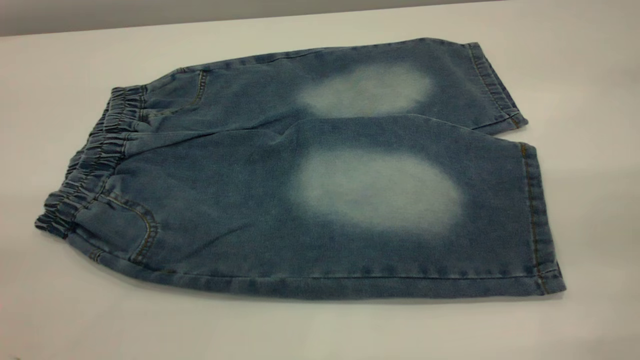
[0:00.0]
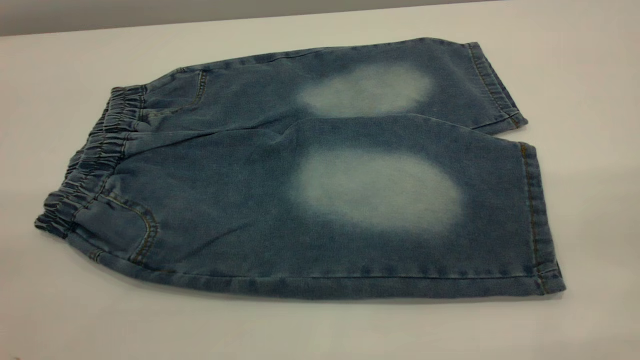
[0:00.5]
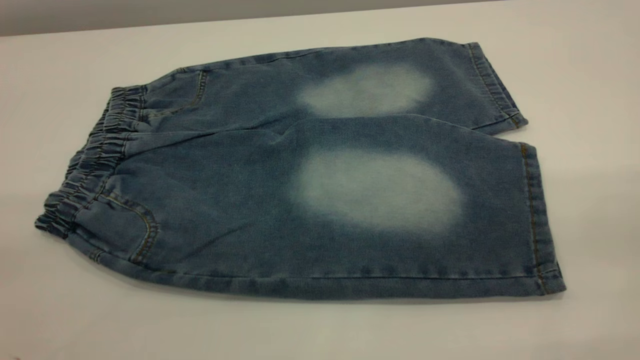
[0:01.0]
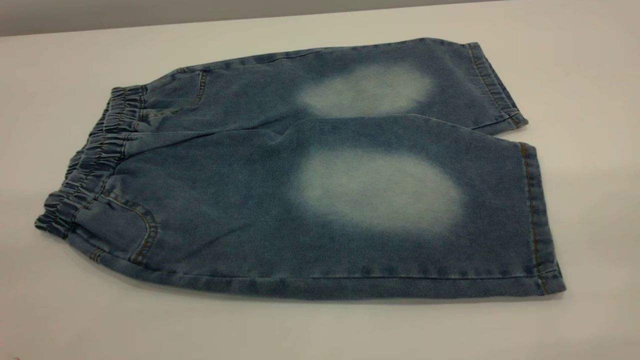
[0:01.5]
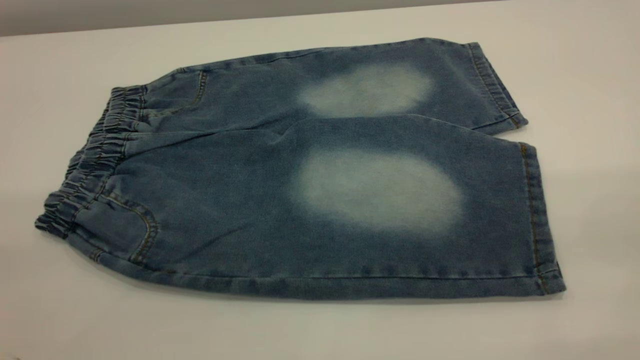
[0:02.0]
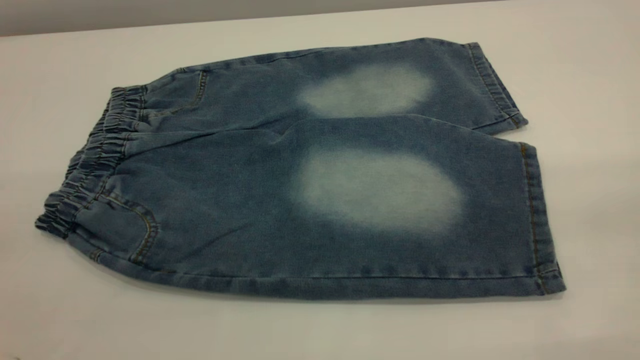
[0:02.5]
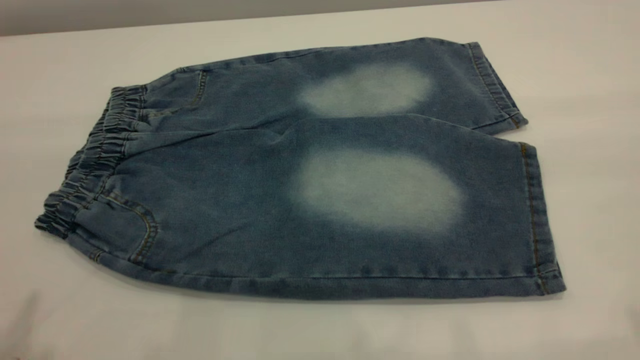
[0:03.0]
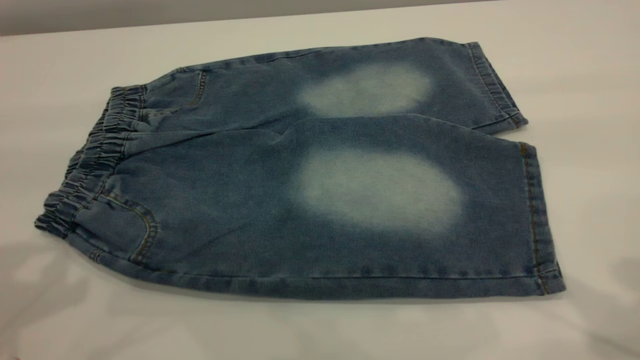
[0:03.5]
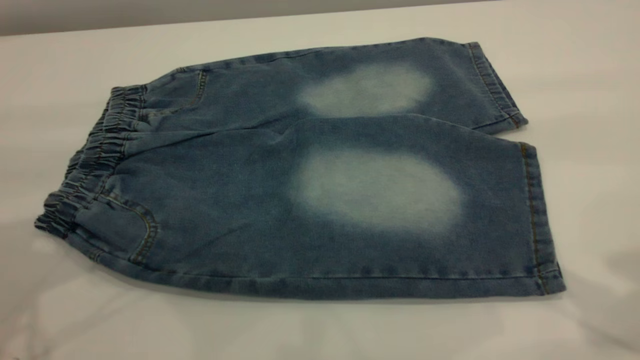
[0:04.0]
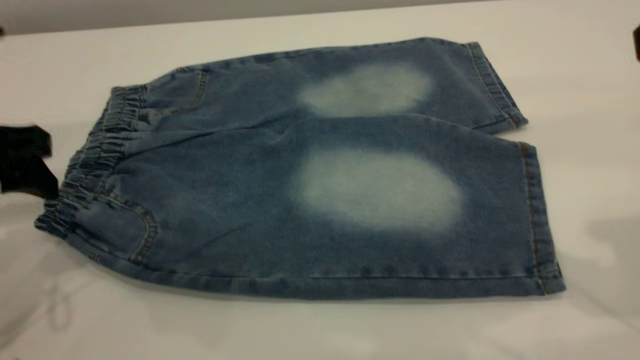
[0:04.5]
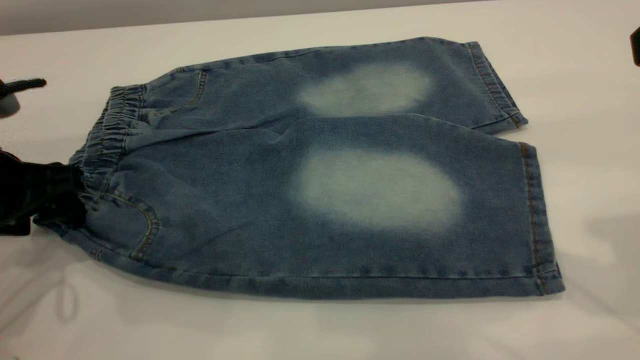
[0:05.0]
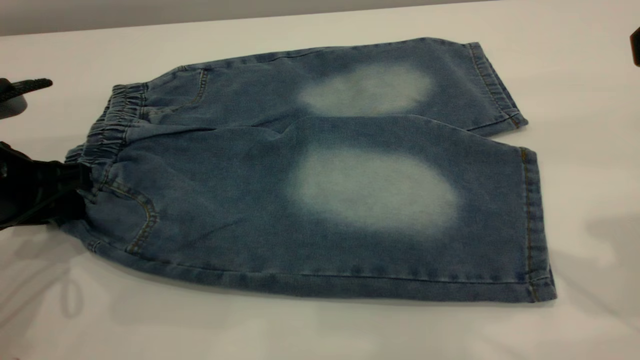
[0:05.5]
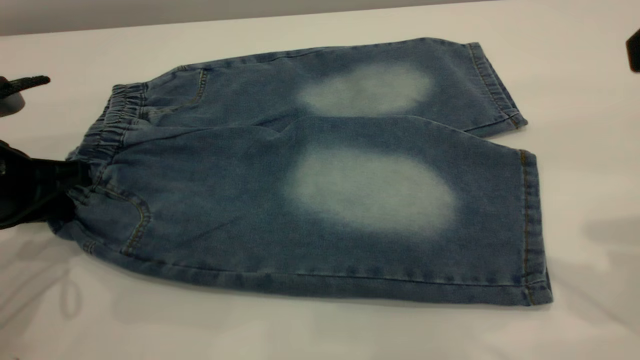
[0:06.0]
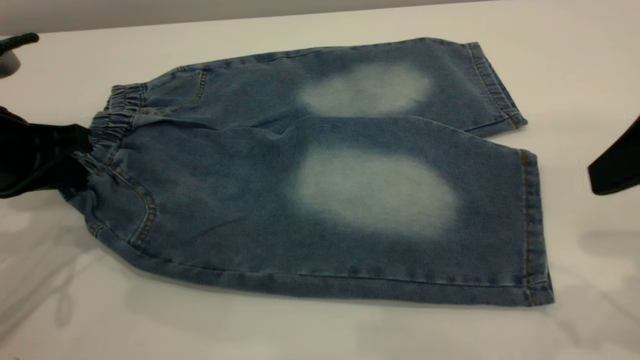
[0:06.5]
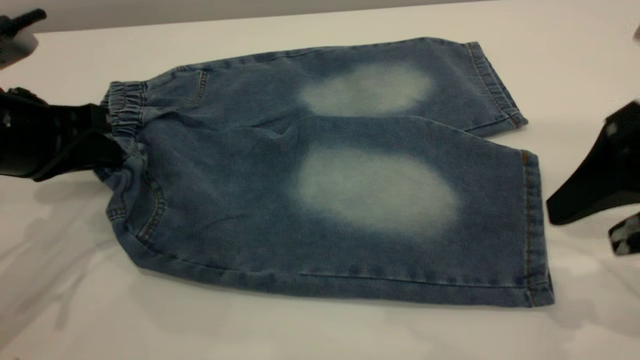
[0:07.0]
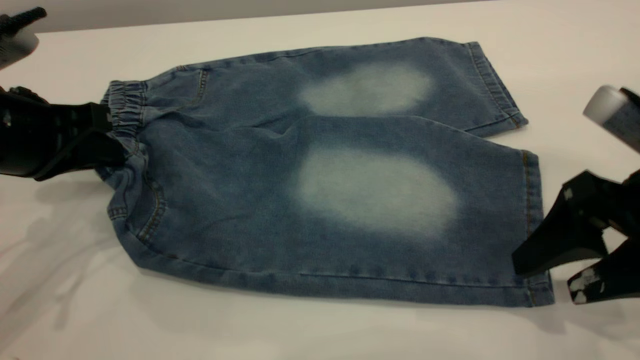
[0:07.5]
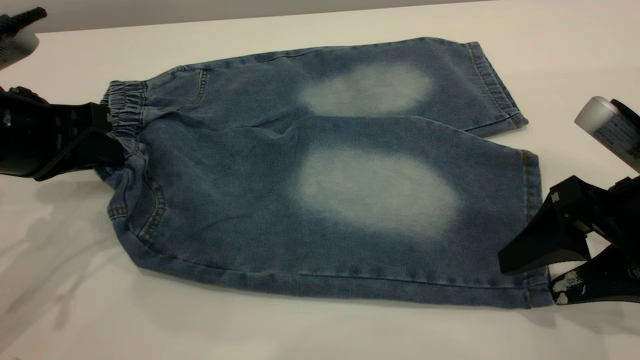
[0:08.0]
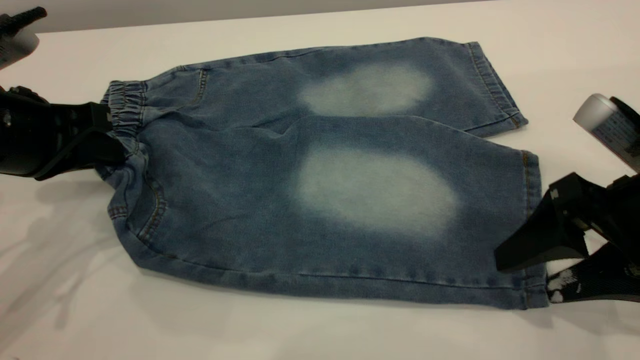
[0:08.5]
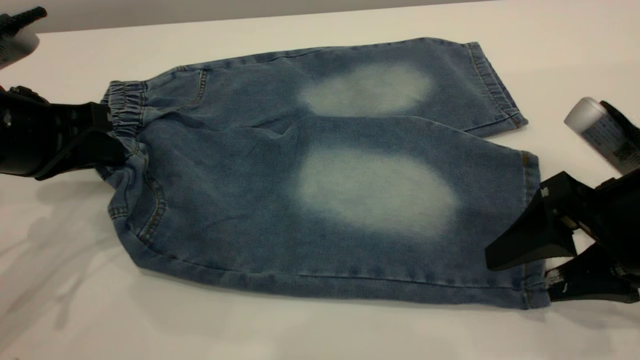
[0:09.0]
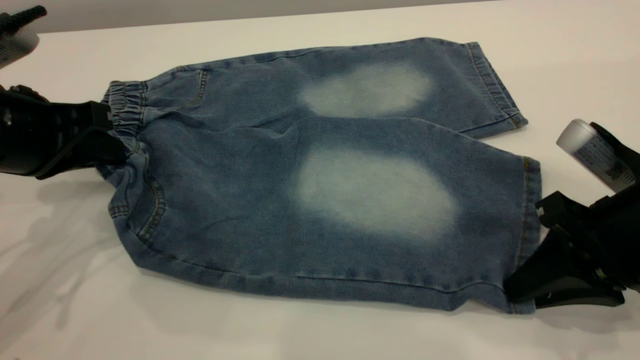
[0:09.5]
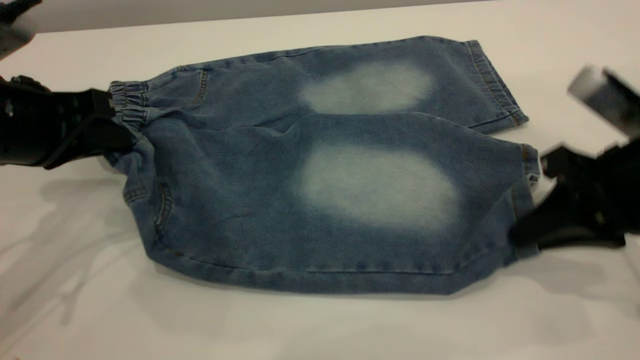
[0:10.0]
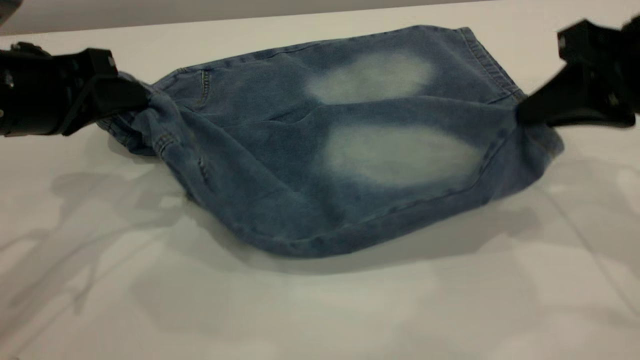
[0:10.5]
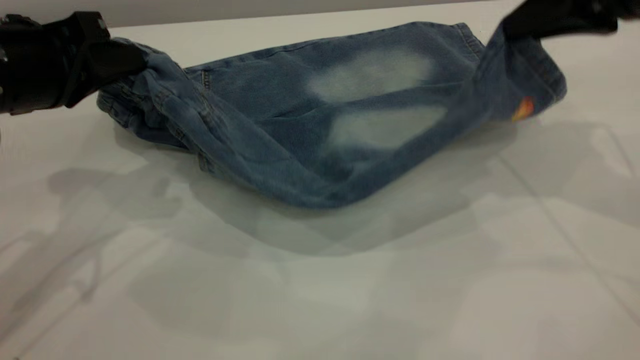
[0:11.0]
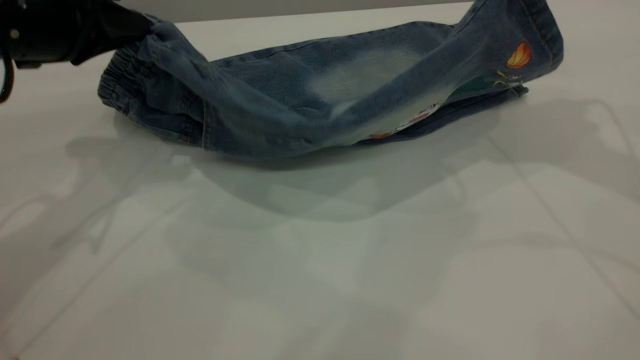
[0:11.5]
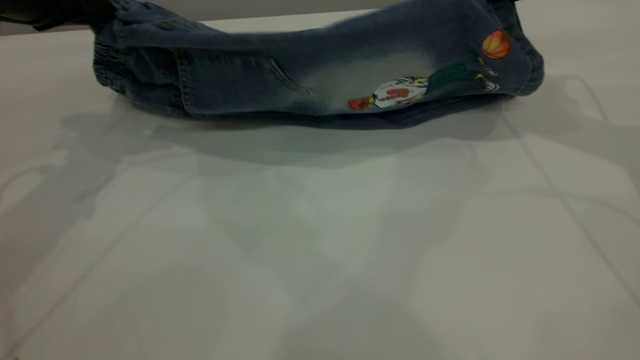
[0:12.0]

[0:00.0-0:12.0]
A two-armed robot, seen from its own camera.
0:00.0 to 0:02.0: Neither gripper changes place.
0:04.0 to 0:06.0: The left gripper moves downward, some 15 cm, and closes its fingers.
0:06.0 to 0:08.0: The right gripper moves downward, about 20 cm.
0:08.0 to 0:10.0: The right gripper closes up.
0:10.0 to 0:12.0: The left gripper goes about 10 cm forward and upward, while the right gripper moves forward and upward, about 20 cm.

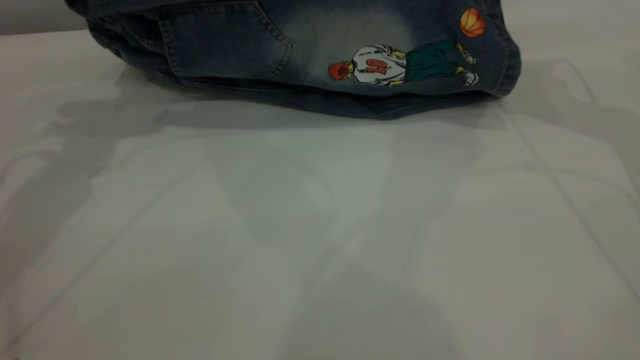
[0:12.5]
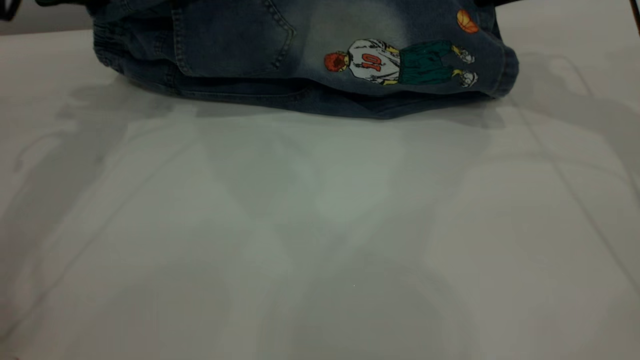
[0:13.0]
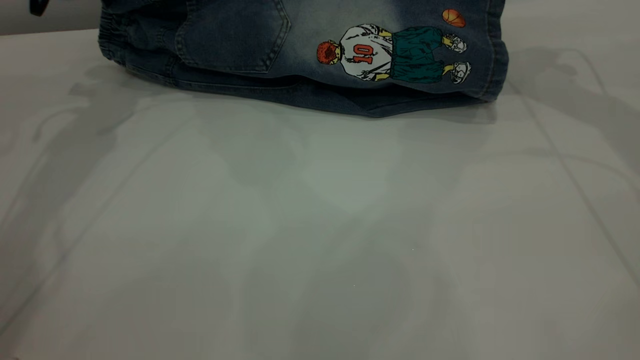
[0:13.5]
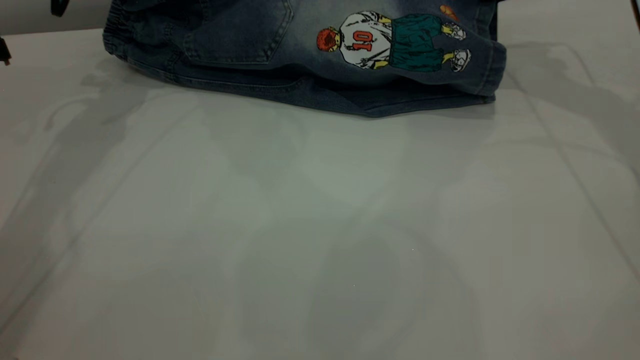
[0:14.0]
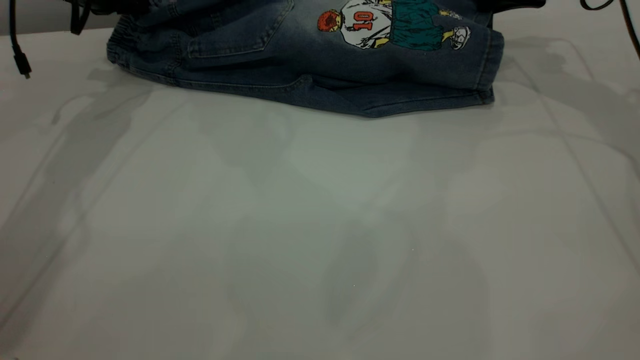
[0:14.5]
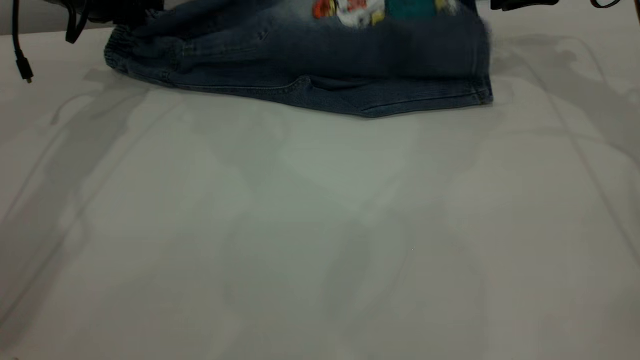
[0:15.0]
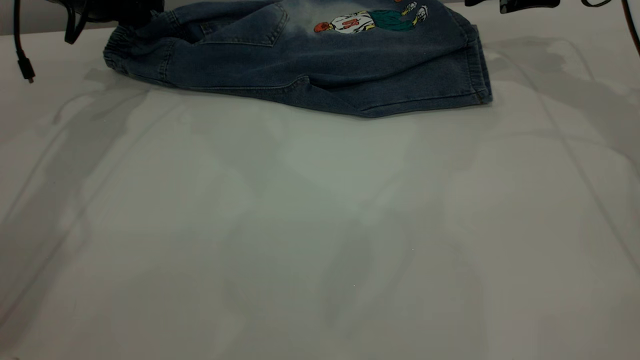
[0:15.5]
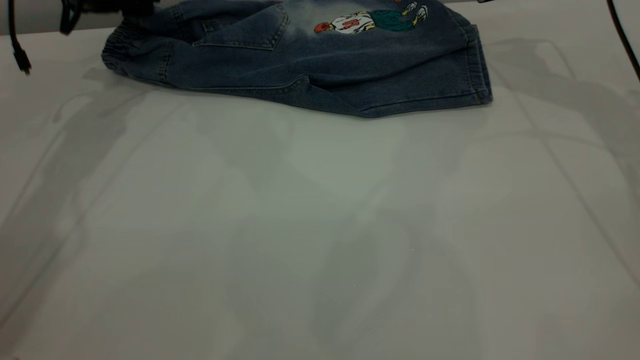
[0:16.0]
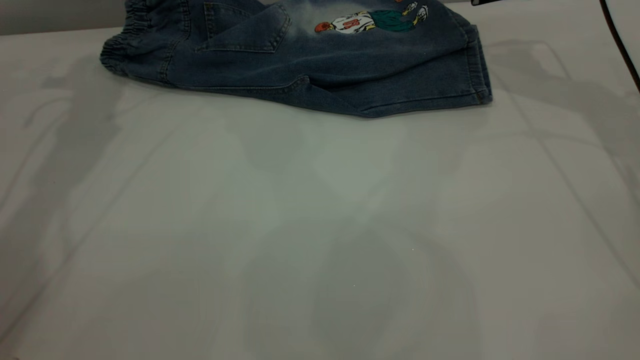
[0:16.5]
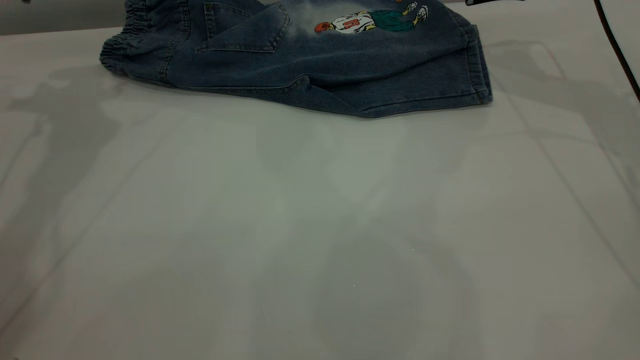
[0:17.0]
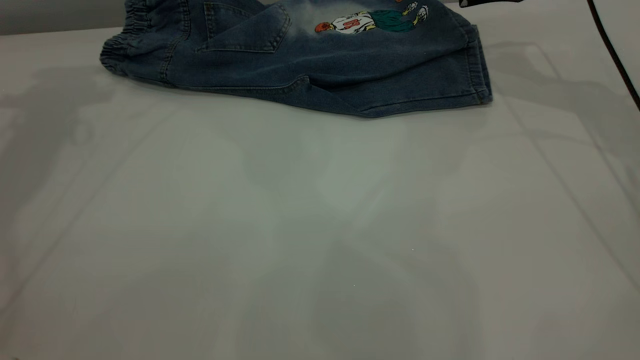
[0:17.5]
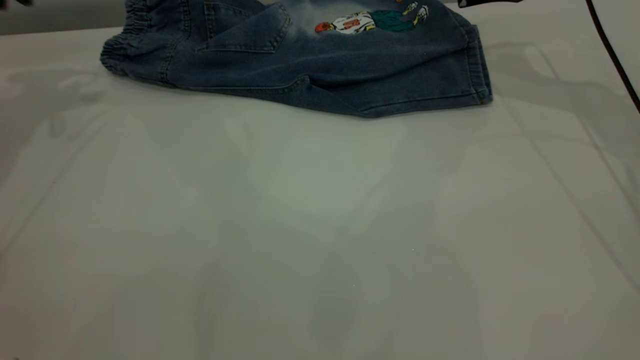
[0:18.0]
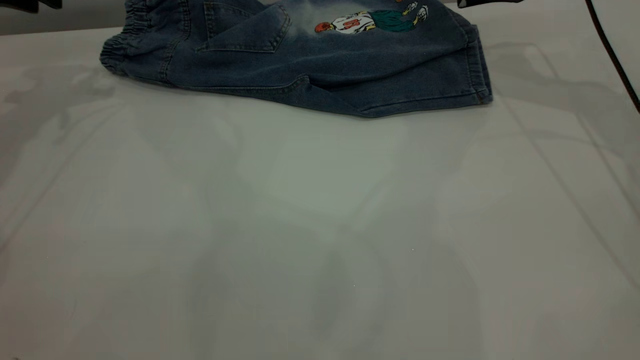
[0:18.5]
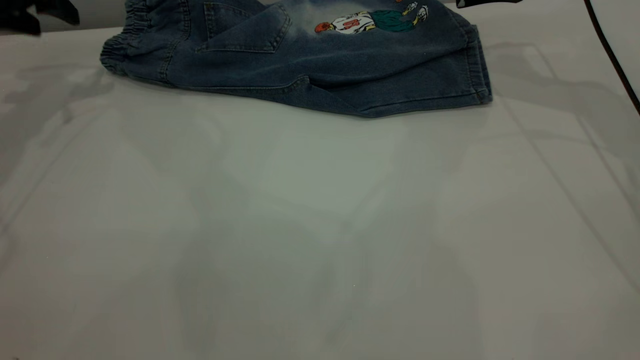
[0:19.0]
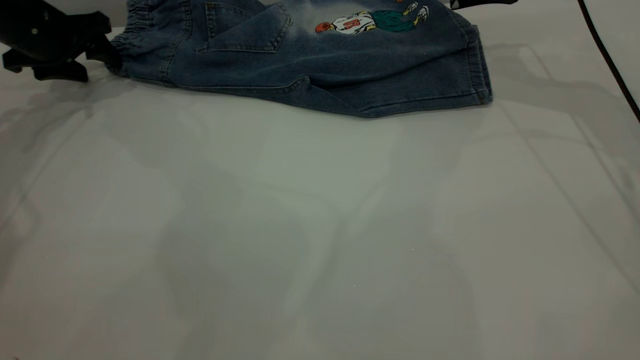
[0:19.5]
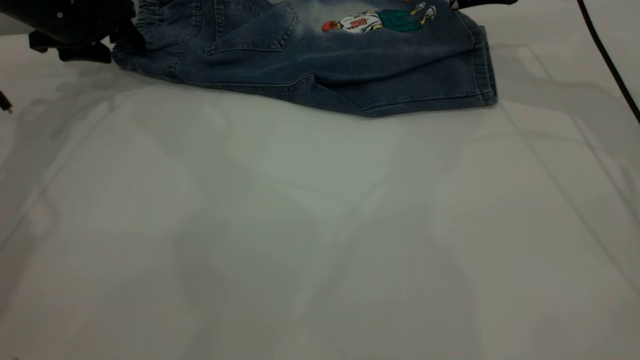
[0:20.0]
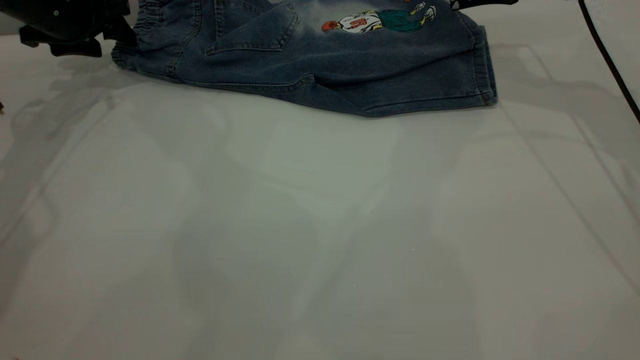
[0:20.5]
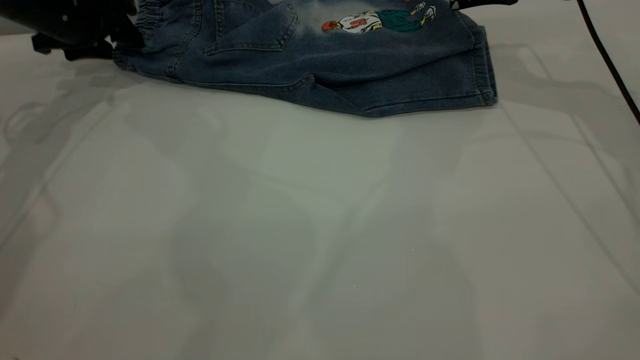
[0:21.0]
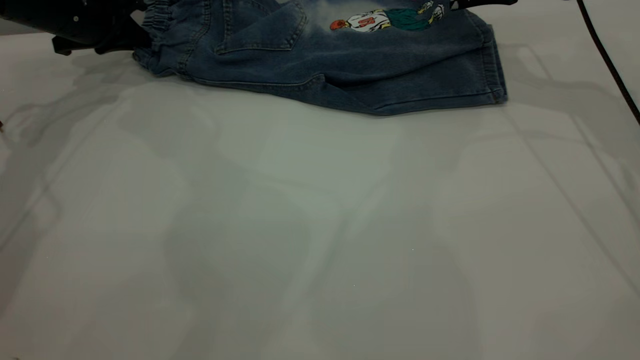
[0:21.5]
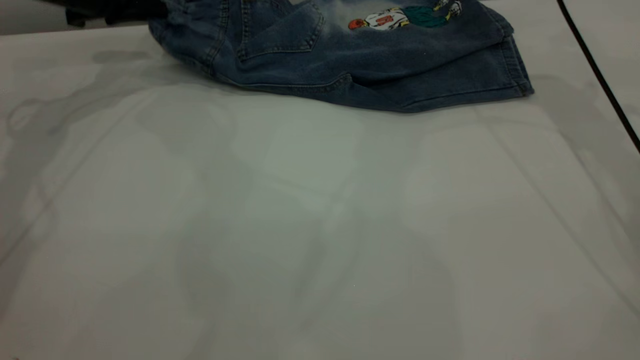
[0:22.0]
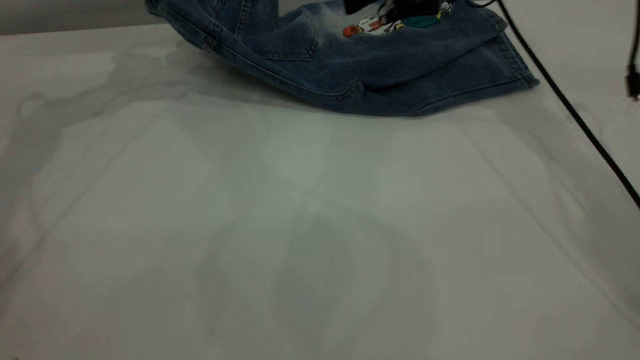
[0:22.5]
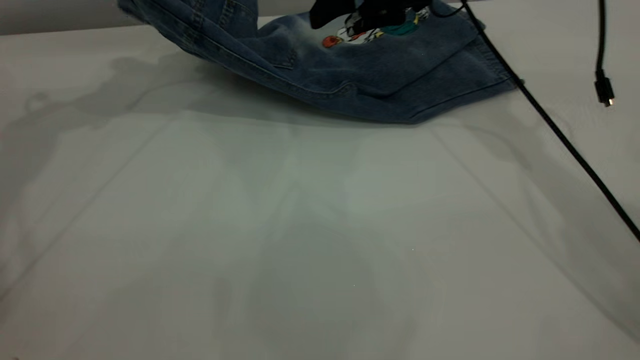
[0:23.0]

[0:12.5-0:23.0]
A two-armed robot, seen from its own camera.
Step, 0:12.5 to 0:16.0: Fold the bottom of the pants upward.
0:12.5 to 0:14.5: The left gripper heads forward and downward, covering some 15 cm, while the right gripper goes approximately 10 cm forward and downward.
0:14.5 to 0:16.5: The right gripper opens its fingers, while the left gripper is displaced upward by about 5 cm, and opens up.
0:16.5 to 0:19.0: The left gripper goes roughly 5 cm to the left.
0:19.0 to 0:21.0: The left gripper goes roughly 5 cm downward.
0:21.0 to 0:23.0: The right gripper heads to the left, covering approximately 15 cm; the left gripper travels upward by some 15 cm, and closes up.
